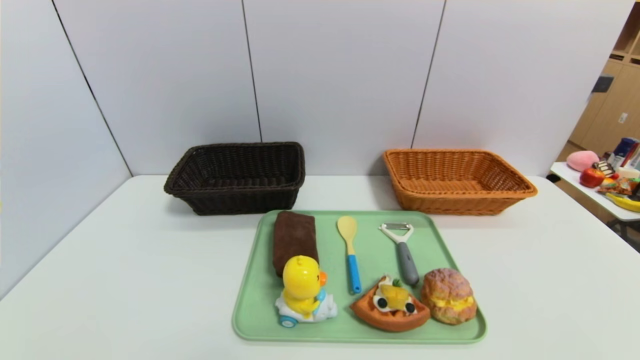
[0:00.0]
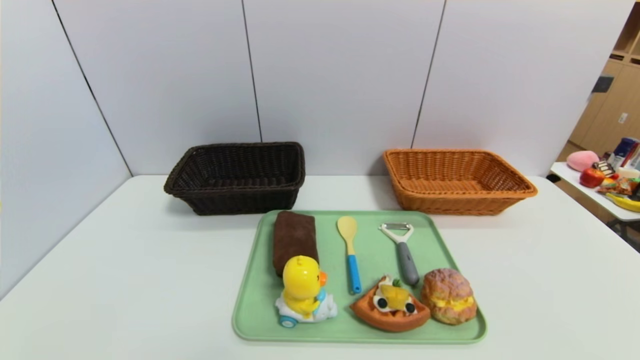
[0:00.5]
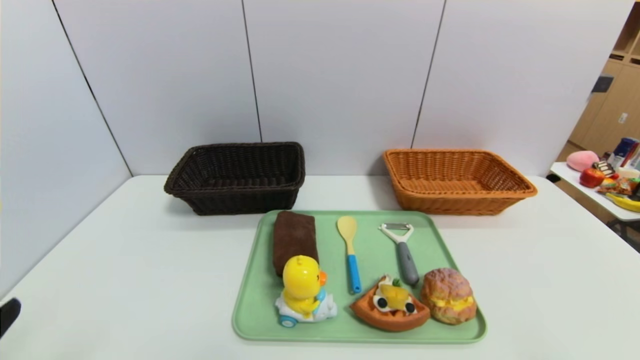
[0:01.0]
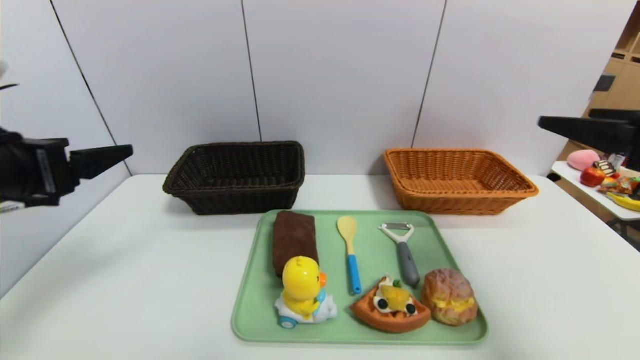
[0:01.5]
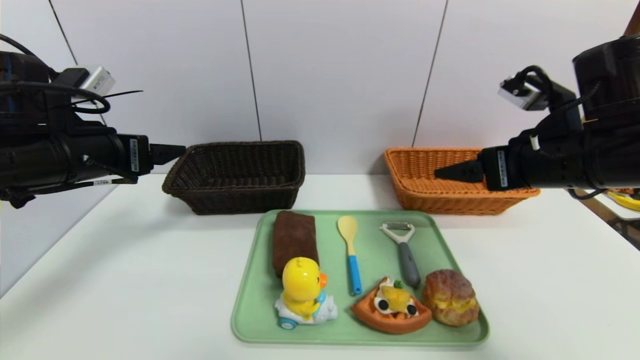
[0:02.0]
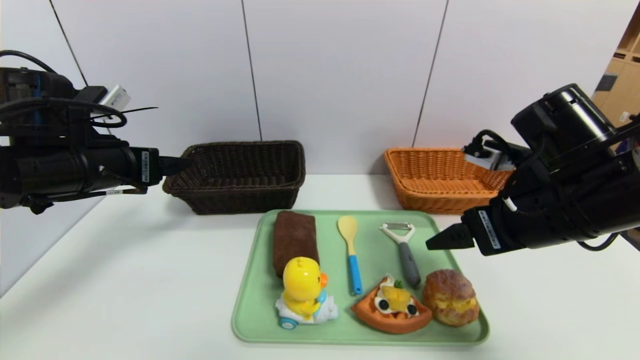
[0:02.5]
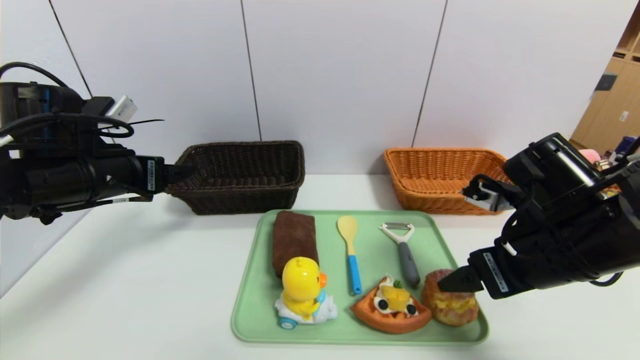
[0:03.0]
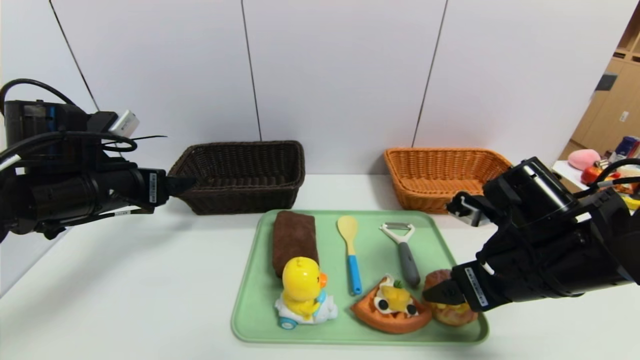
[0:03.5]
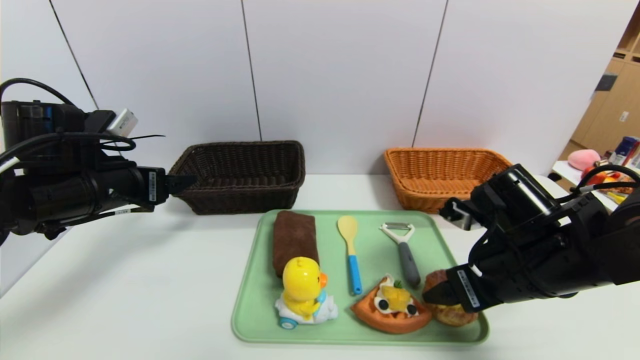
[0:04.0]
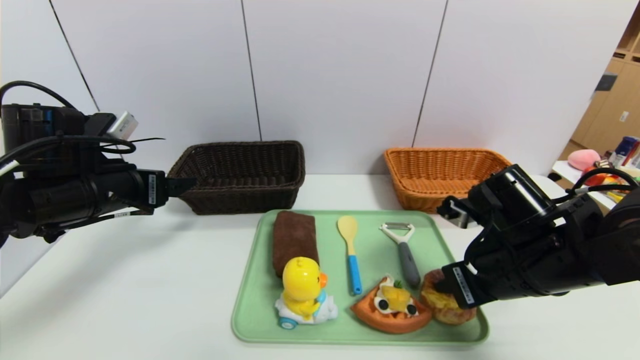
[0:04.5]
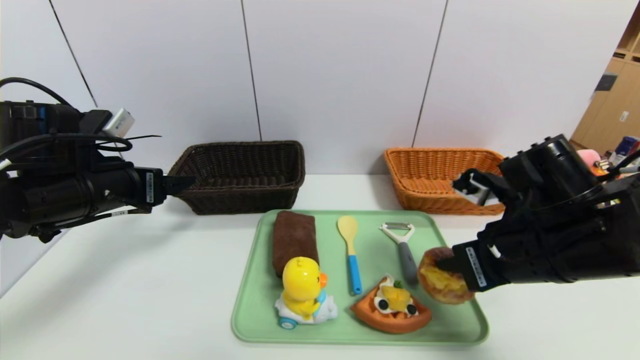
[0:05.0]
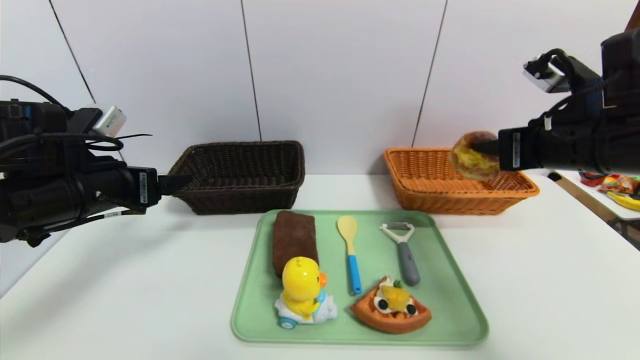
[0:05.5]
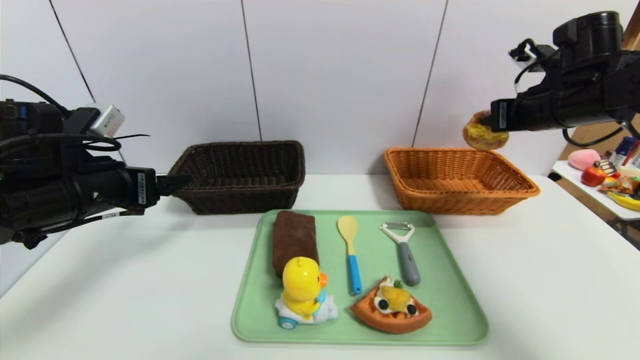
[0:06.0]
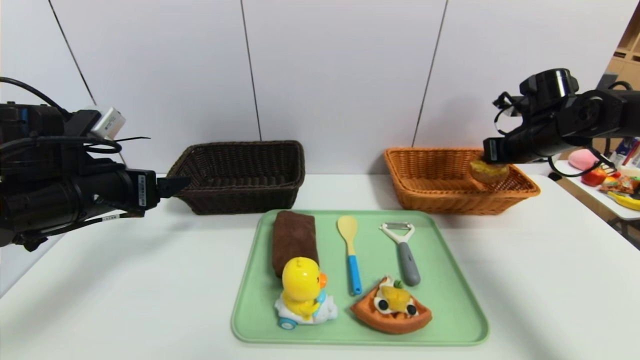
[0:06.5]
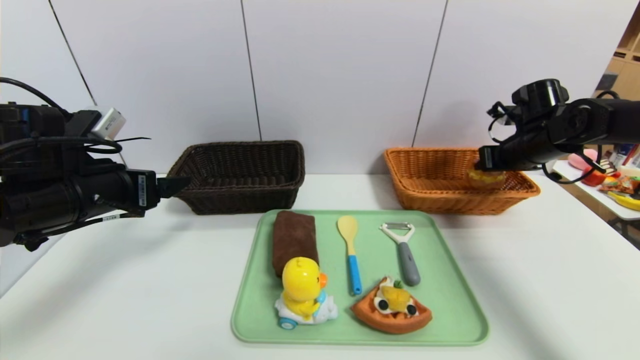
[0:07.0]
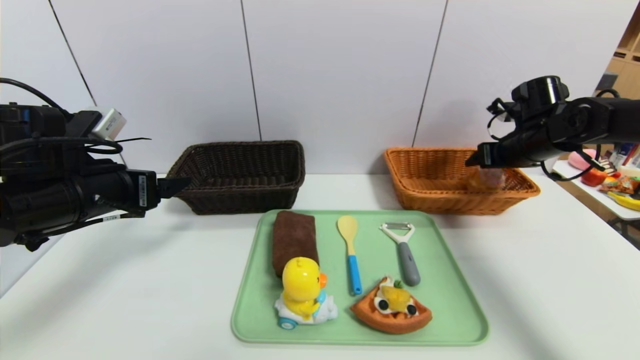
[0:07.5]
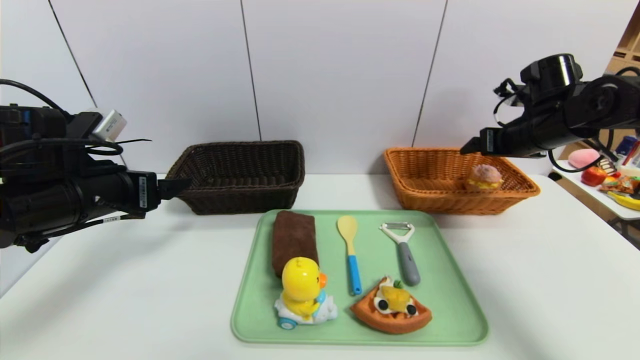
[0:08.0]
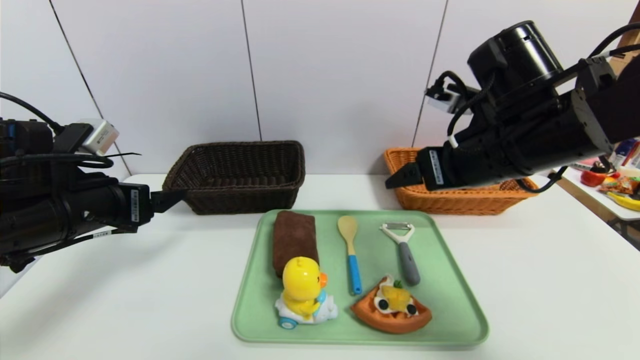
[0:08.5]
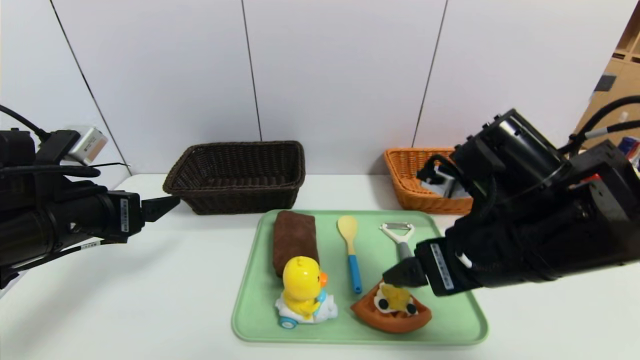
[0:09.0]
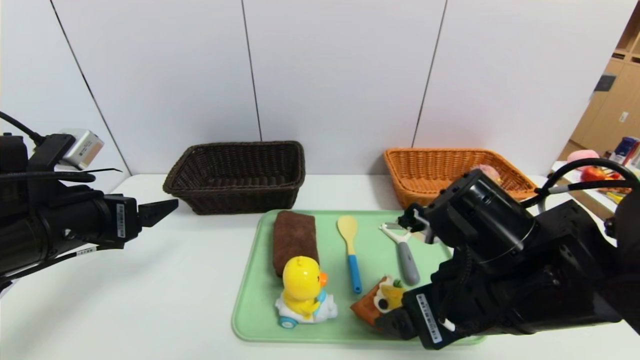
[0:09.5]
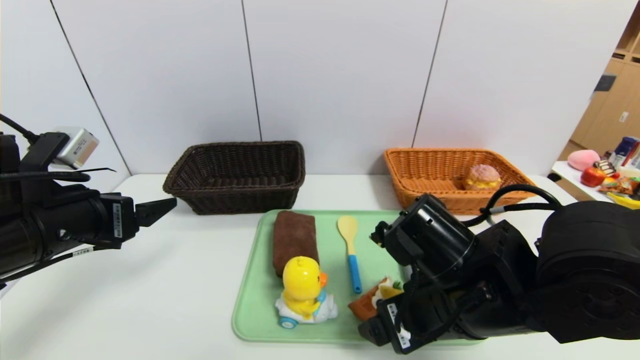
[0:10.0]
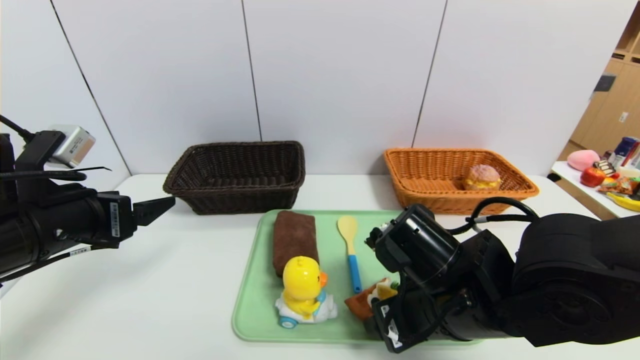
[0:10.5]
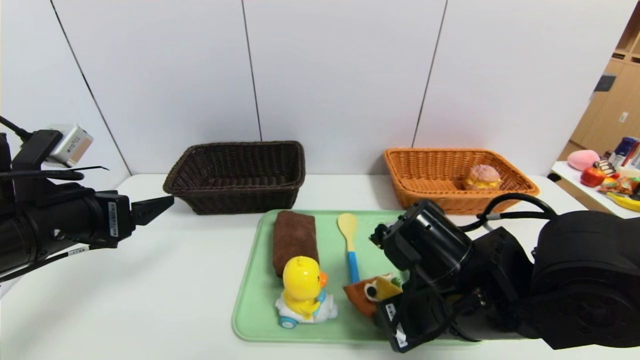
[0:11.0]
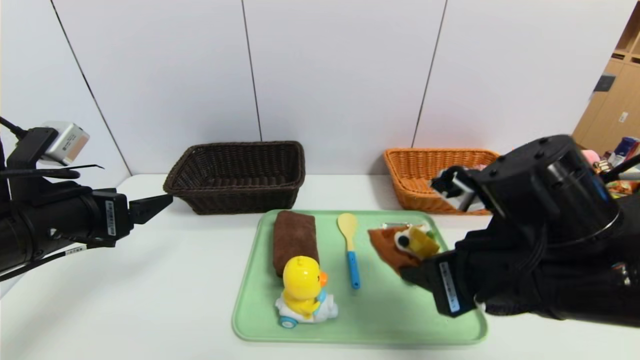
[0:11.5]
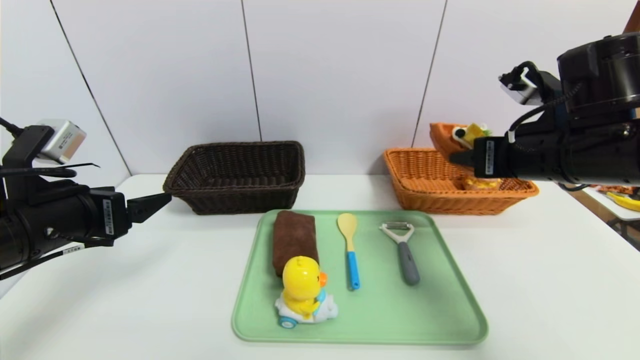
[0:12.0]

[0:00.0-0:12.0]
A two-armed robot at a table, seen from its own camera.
Task of the whole recording: place the food in the right basket with the right gripper, and place the non food items in the left basket with the left gripper.
Step, 0:00.0 to 0:07.5: Grasp the egg yolk pastry and put it in the right basket.
0:00.0 to 0:02.0: The two grippers go roughly 35 cm forward and upward.
0:02.0 to 0:04.0: The right gripper travels downward by roughly 10 cm.
0:04.0 to 0:06.0: The right gripper moves forward, upward and to the right, about 20 cm, and closes.
0:06.0 to 0:08.0: The right gripper opens up.
0:08.0 to 0:10.0: The right gripper travels backward, to the left and downward by approximately 30 cm.
0:10.0 to 0:12.0: The right gripper travels to the right, upward and forward by about 20 cm, and closes its fingers.

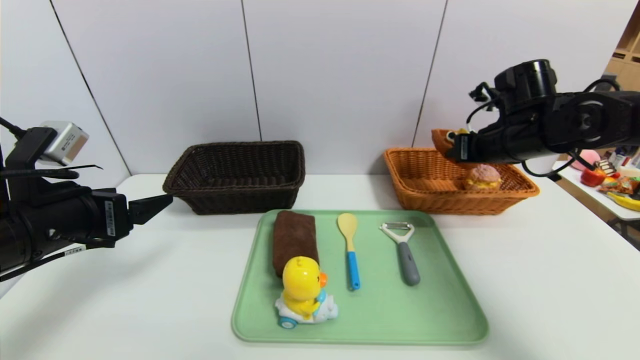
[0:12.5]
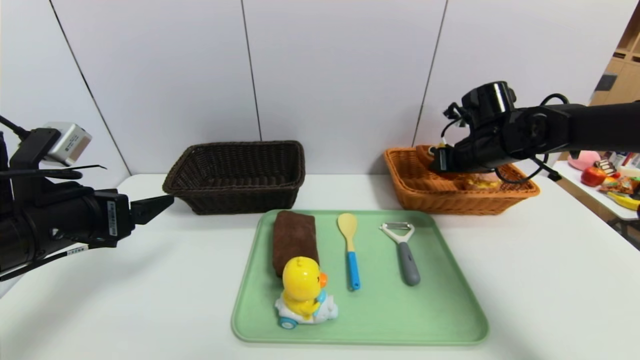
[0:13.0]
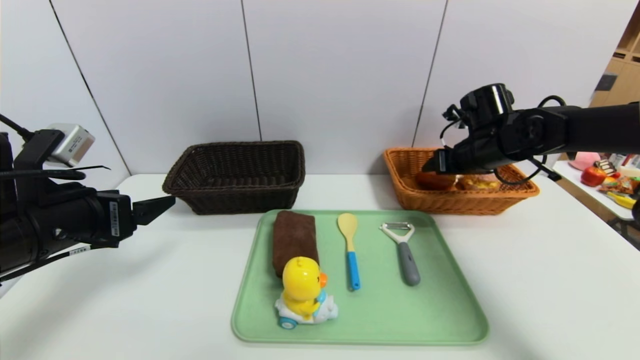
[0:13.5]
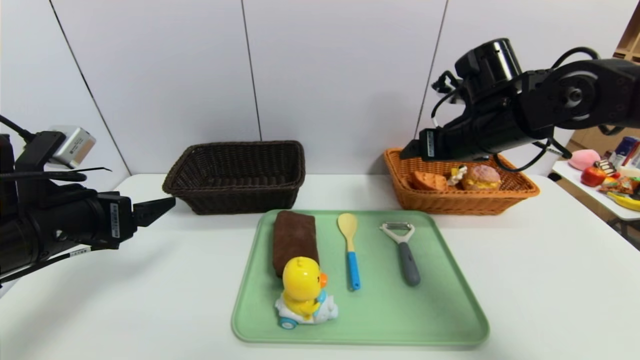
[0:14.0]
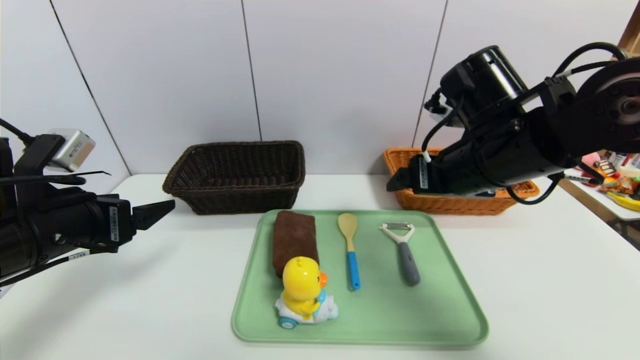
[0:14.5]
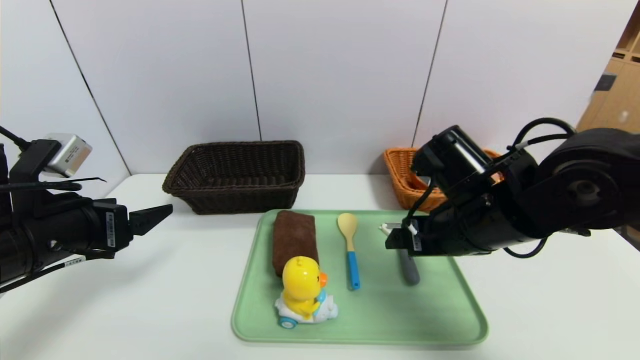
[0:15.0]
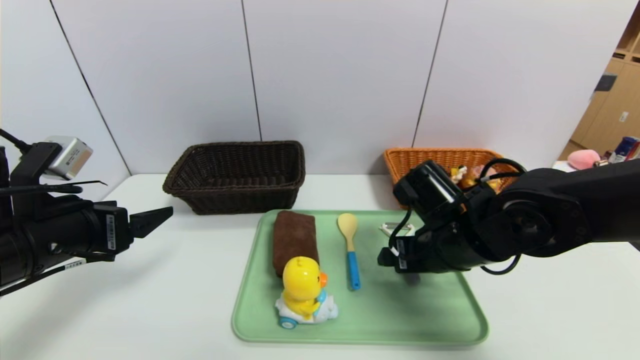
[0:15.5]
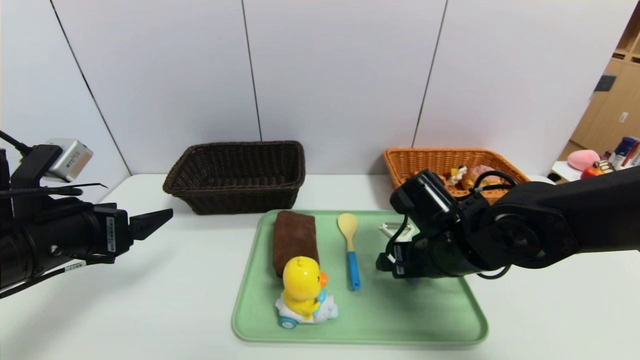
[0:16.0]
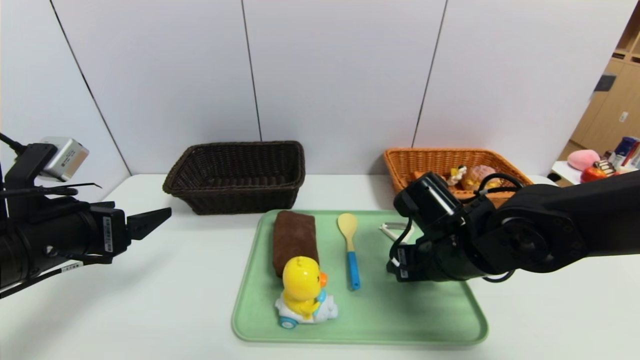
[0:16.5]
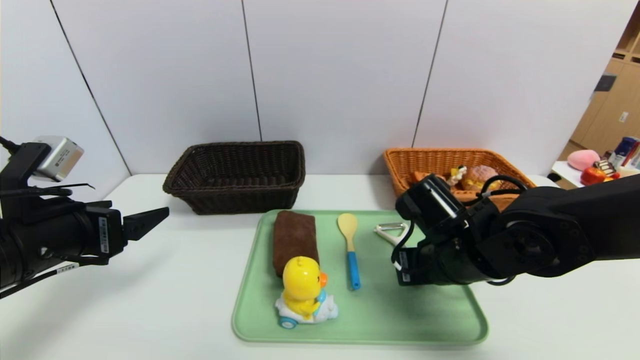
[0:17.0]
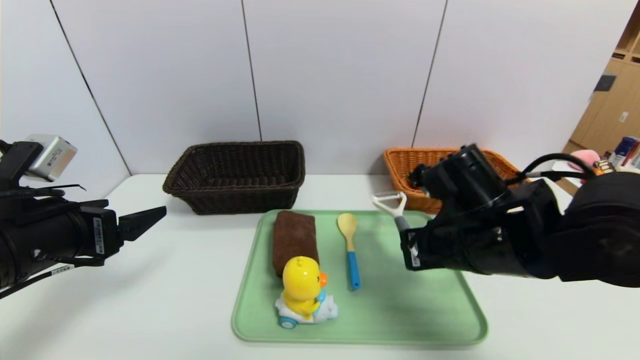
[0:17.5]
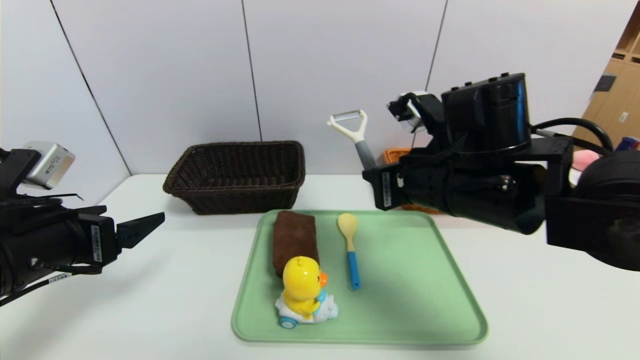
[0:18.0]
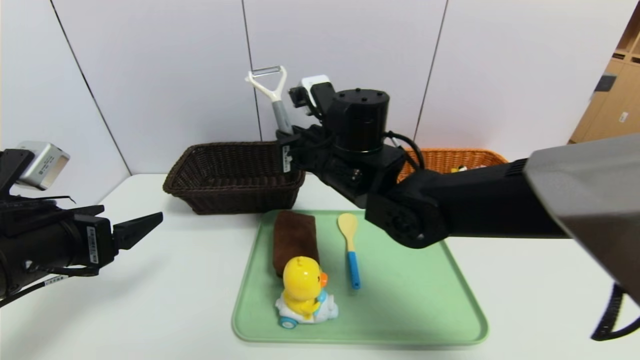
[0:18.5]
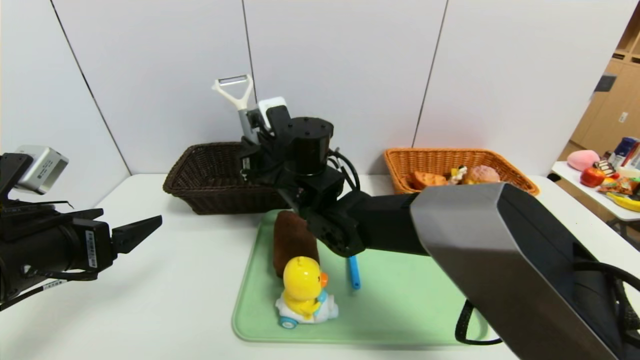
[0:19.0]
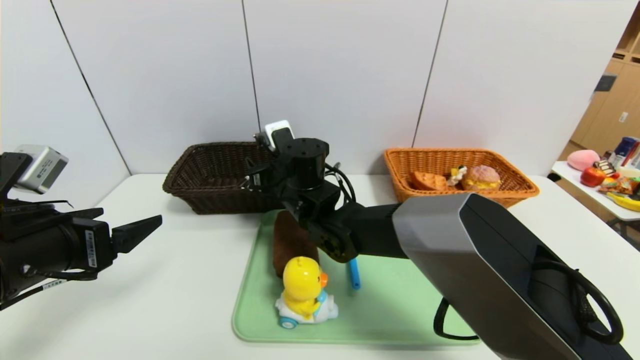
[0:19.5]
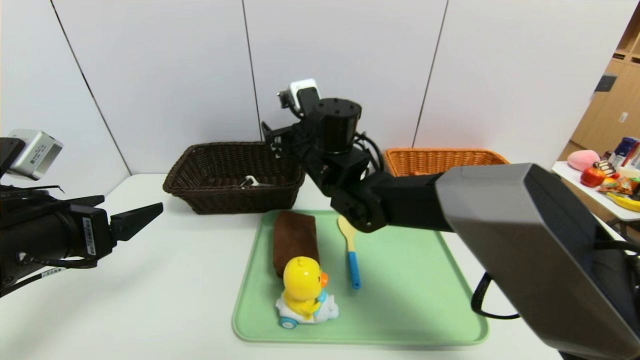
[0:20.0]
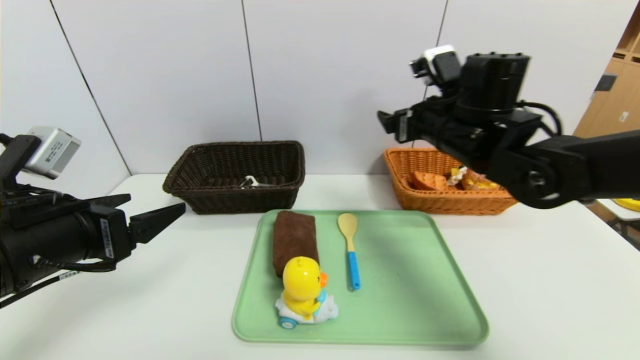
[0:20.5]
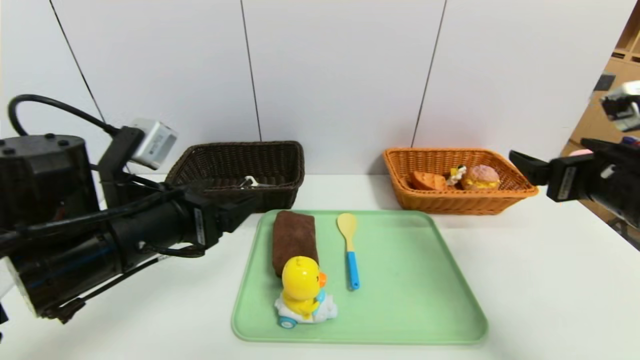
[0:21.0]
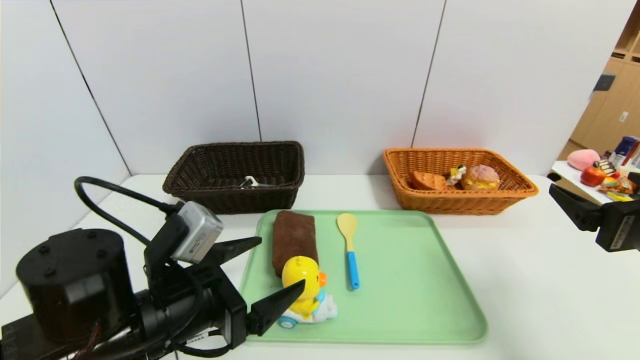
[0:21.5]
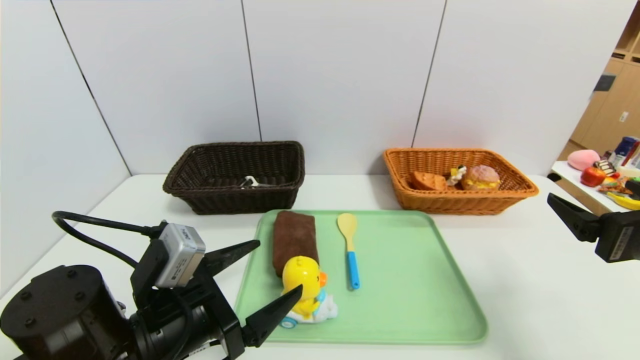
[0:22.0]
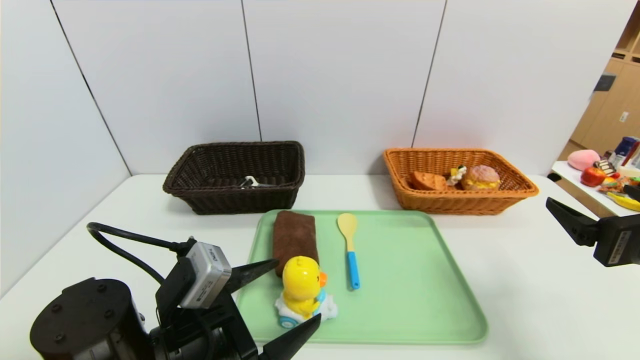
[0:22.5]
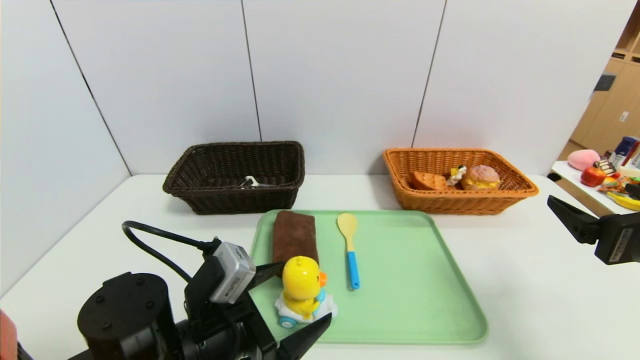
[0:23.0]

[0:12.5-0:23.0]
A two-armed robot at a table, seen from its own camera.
Task of the whole recording: place the food in the right basket with the right gripper, and place the non food items in the left basket with the left gripper.
0:12.5 to 0:14.5: The right gripper travels backward and to the left by approximately 15 cm, and opens.
0:14.5 to 0:16.5: The right gripper moves downward, about 10 cm, and closes its fingers.
0:16.5 to 0:19.0: The right gripper goes approximately 20 cm to the left and forward, and closes.
0:19.0 to 0:21.0: The right gripper moves to the right and backward, roughly 40 cm, and opens up. The left gripper goes some 10 cm to the right.
0:21.0 to 0:23.0: The right gripper goes approximately 5 cm backward. The left gripper is displaced downward by approximately 10 cm.
